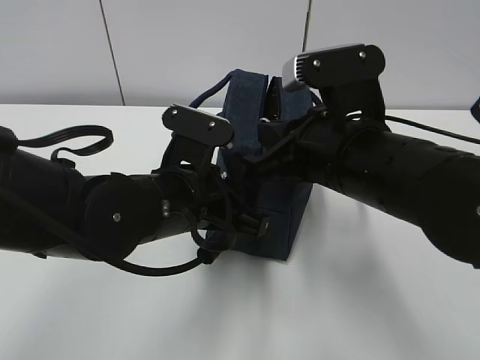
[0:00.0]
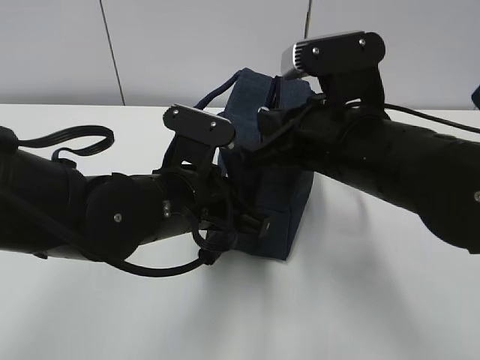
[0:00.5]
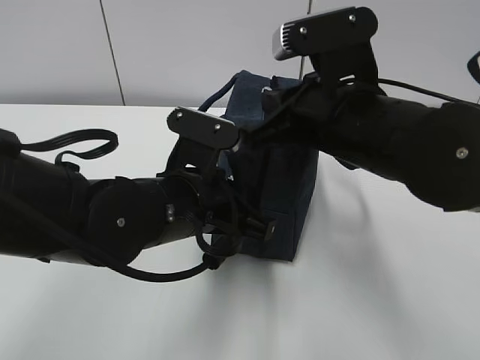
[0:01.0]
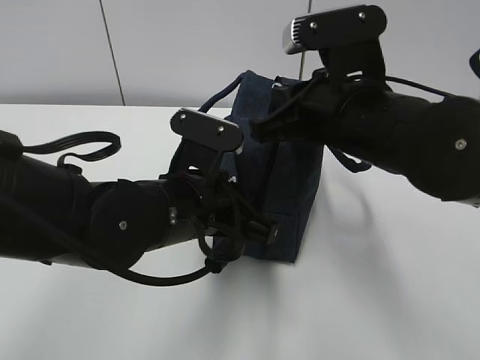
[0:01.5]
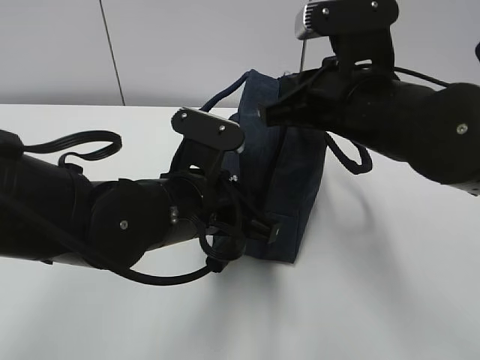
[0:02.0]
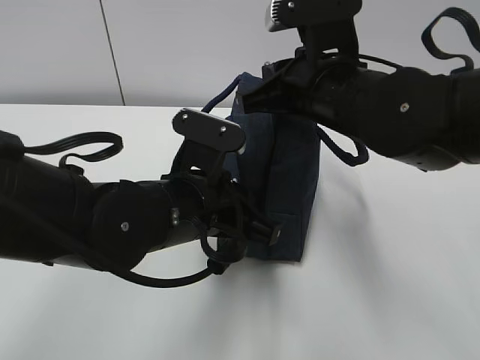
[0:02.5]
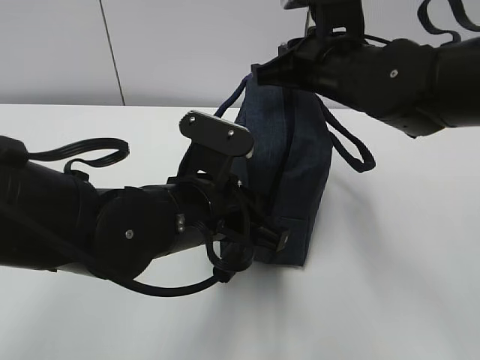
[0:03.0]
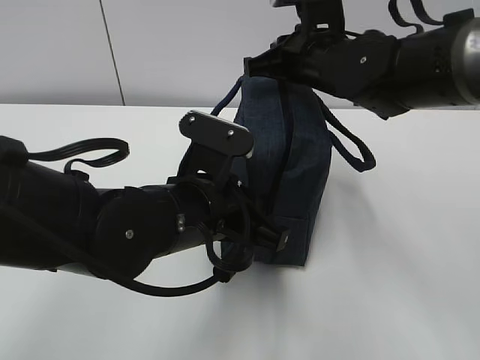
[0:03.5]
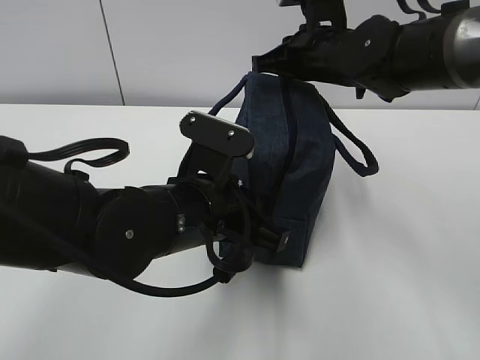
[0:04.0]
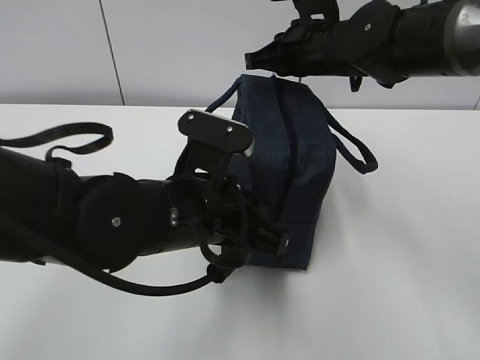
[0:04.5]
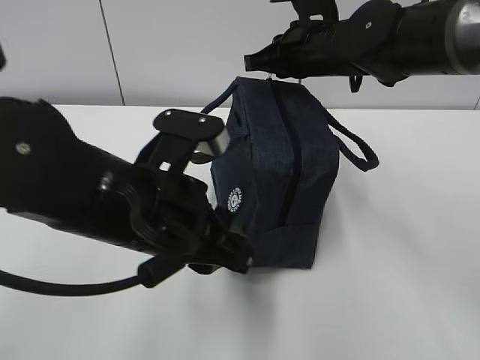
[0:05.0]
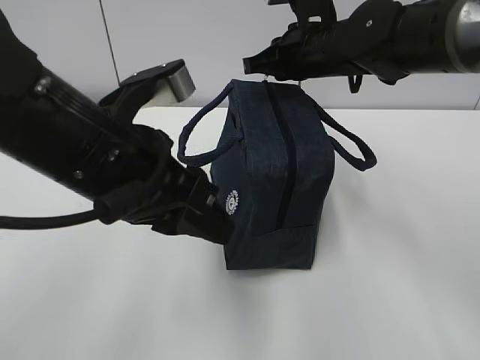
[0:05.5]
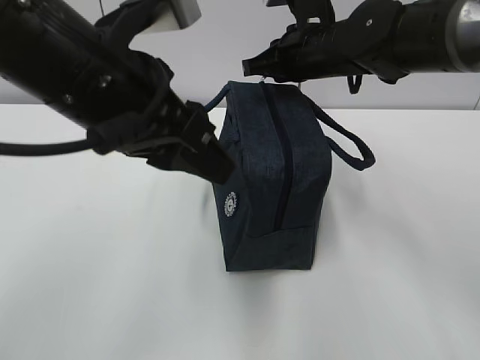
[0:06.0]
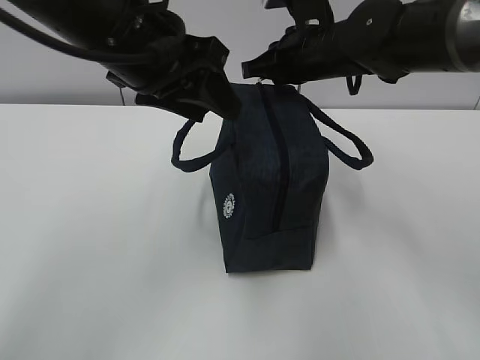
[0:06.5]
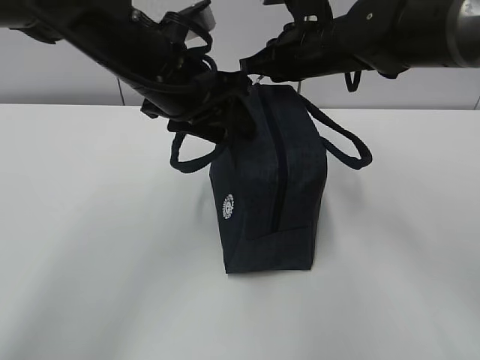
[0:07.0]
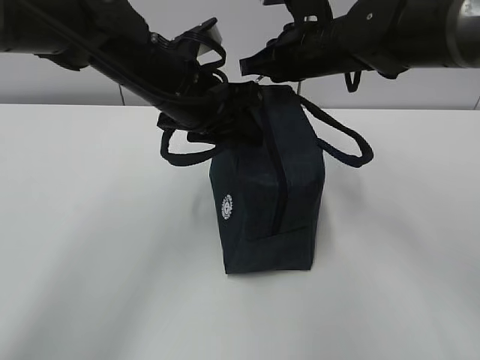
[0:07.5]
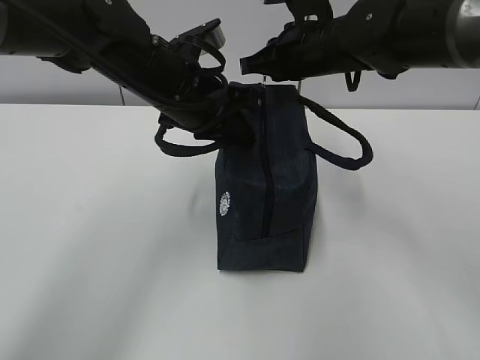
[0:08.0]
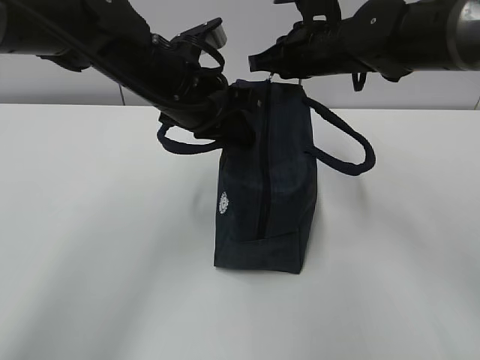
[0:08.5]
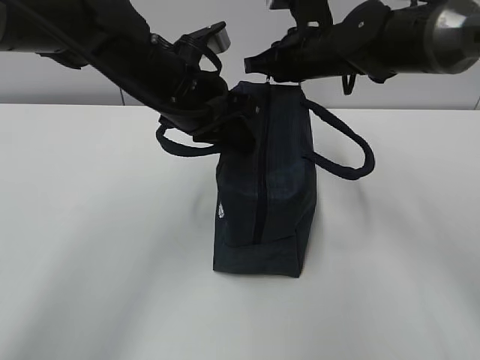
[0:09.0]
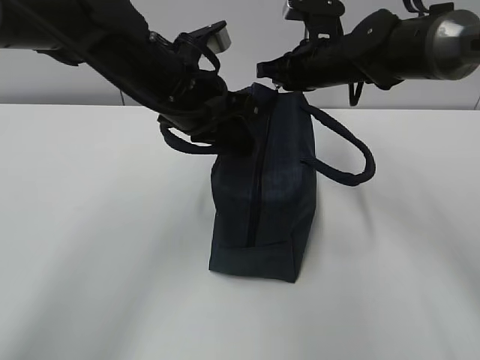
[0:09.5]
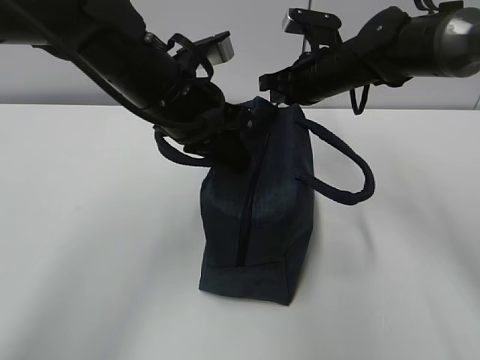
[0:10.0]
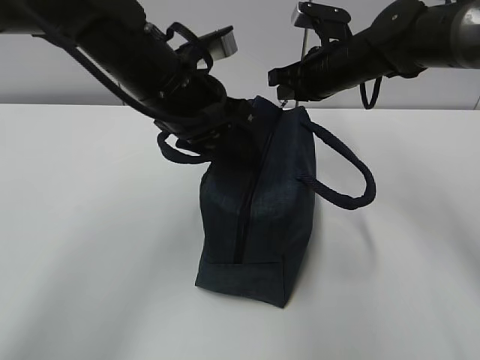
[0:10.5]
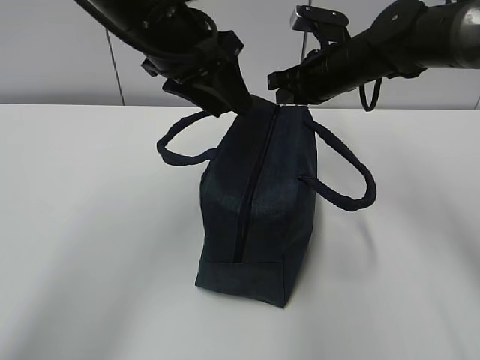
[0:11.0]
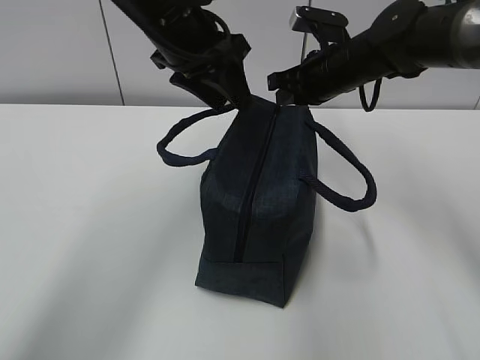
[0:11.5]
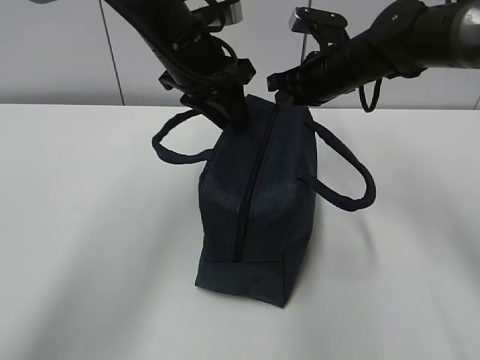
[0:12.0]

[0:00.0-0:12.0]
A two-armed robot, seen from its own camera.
0:02.0 to 0:04.0: The right gripper travels forward by about 15 cm.
0:04.0 to 0:06.0: The left gripper goes roughly 15 cm upward, and opens up.
0:06.0 to 0:08.0: The left gripper heads forward and downward, covering approximately 15 cm, and closes up.
0:08.0 to 0:10.0: The right gripper shifts by about 5 cm.
0:10.0 to 0:12.0: The left gripper shifts about 5 cm forward, and opens up.

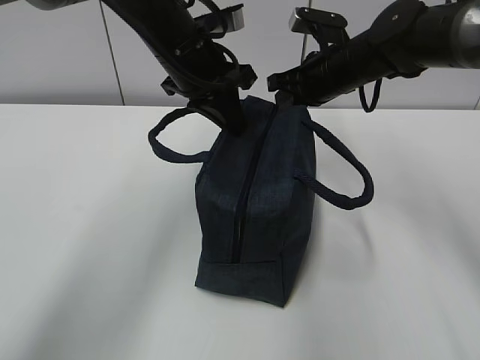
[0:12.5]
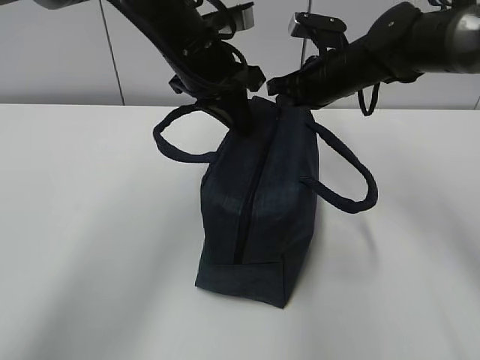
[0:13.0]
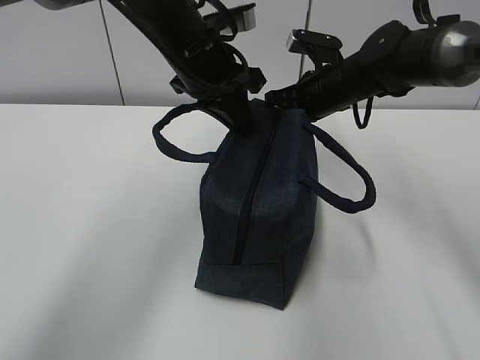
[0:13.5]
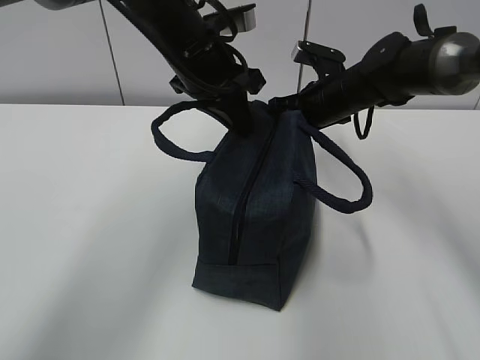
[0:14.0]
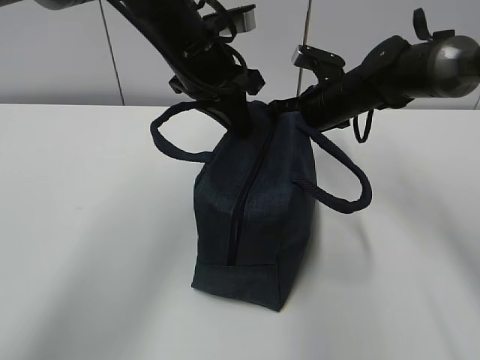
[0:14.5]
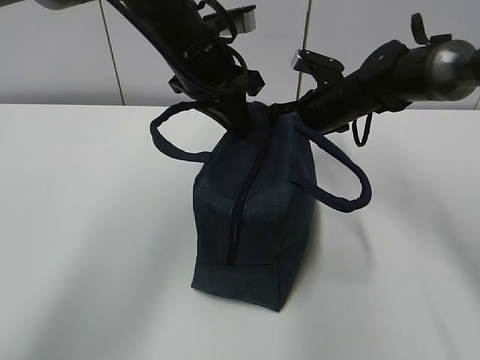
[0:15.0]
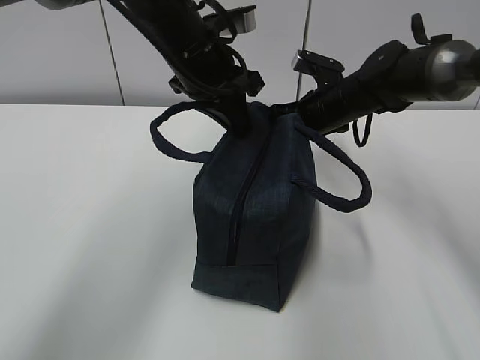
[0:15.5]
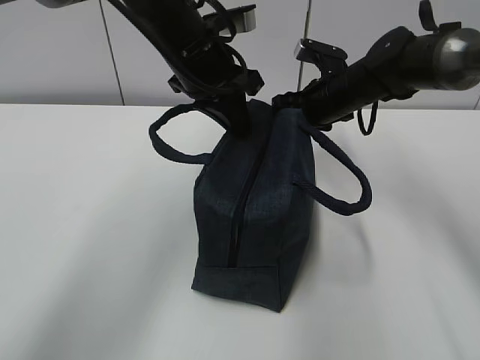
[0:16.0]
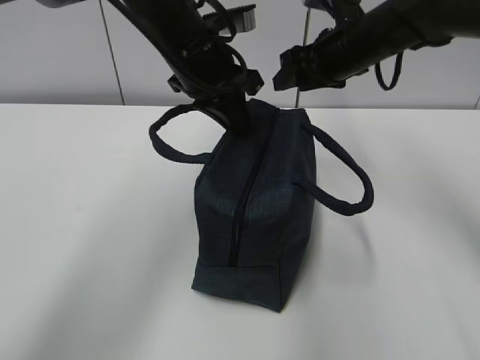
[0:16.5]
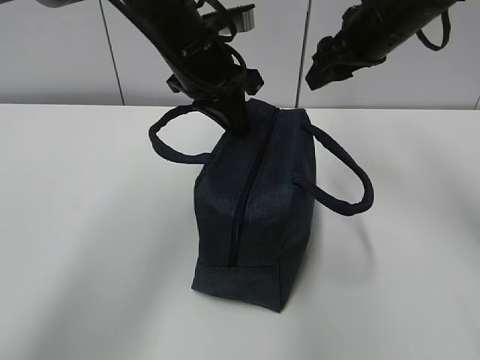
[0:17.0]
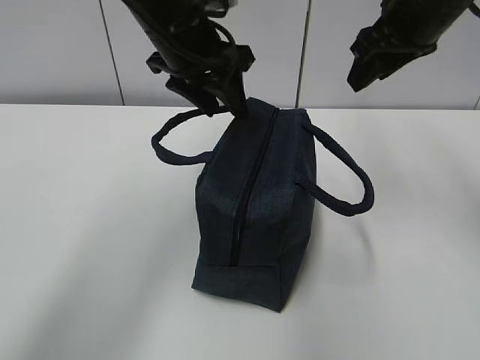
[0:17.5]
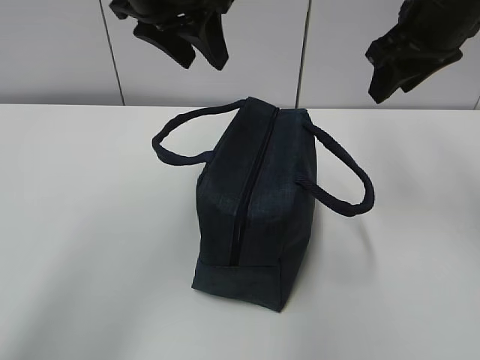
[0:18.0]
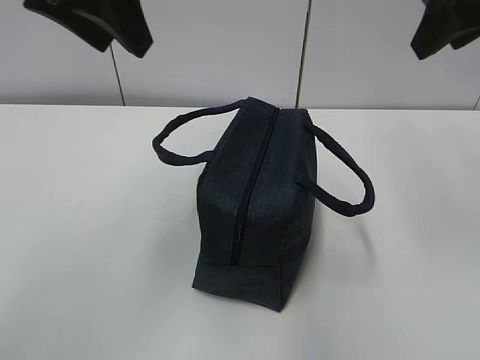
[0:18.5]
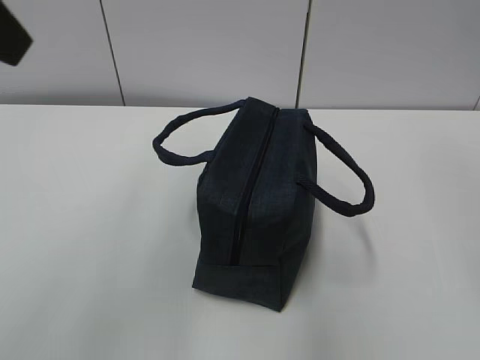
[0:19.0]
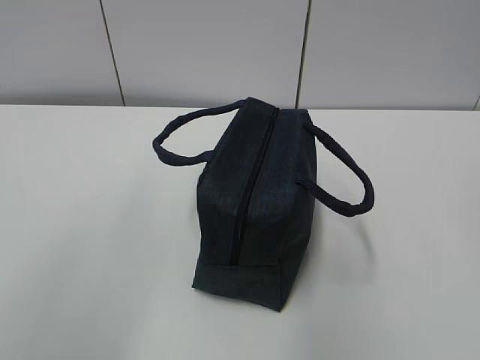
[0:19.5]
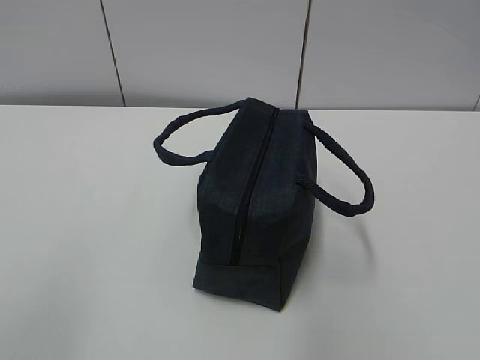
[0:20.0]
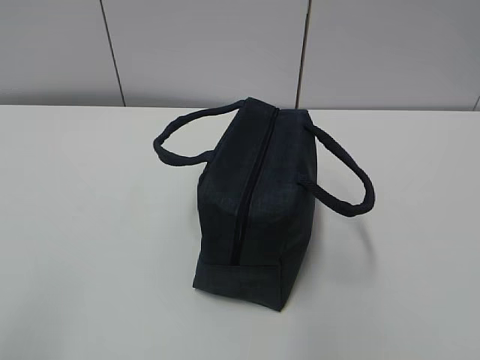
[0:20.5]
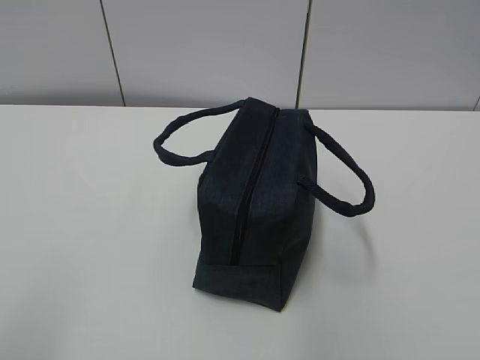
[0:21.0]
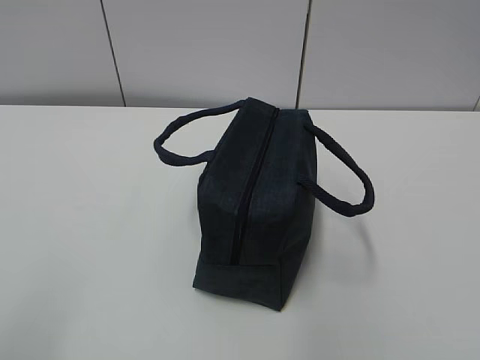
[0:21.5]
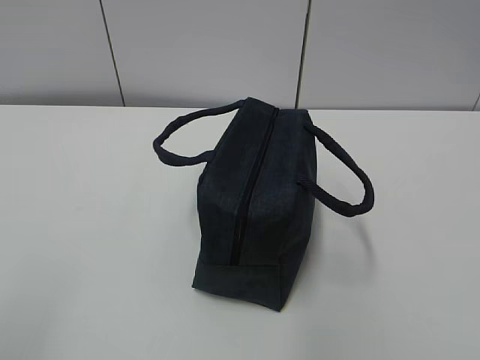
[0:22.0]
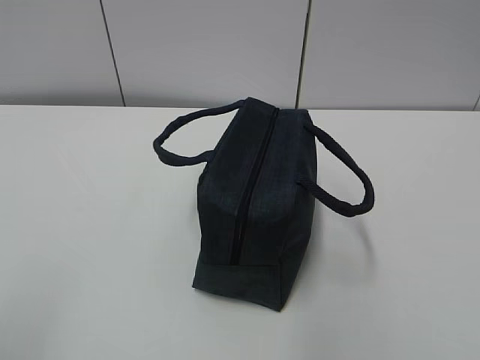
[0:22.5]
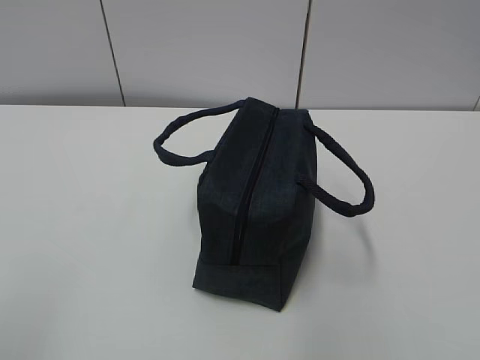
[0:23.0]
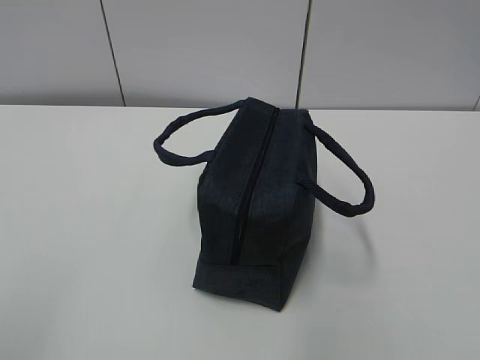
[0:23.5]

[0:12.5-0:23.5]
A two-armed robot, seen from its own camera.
0:12.5 to 0:14.5: The right gripper is displaced downward by roughly 5 cm.
0:14.5 to 0:16.0: The right gripper opens.
0:16.0 to 0:18.0: The left gripper heads upward, covering some 10 cm, and opens. Meanwhile the right gripper moves upward and backward, some 20 cm.
0:18.0 to 0:20.0: The right gripper heads backward, covering roughly 40 cm. Meanwhile the left gripper goes approximately 40 cm backward and to the left.

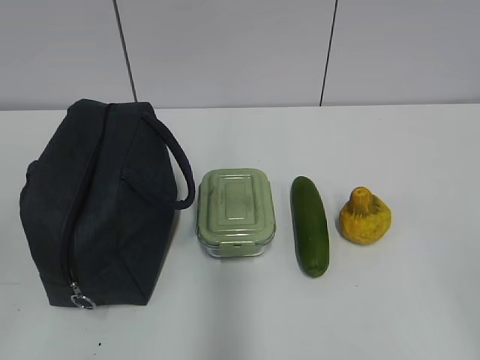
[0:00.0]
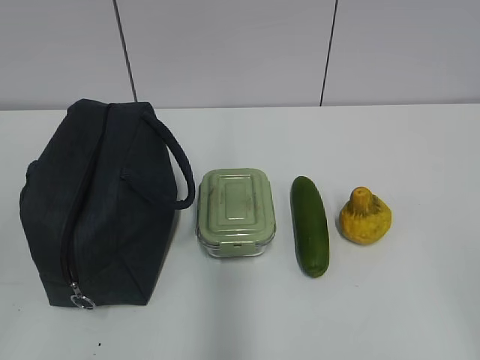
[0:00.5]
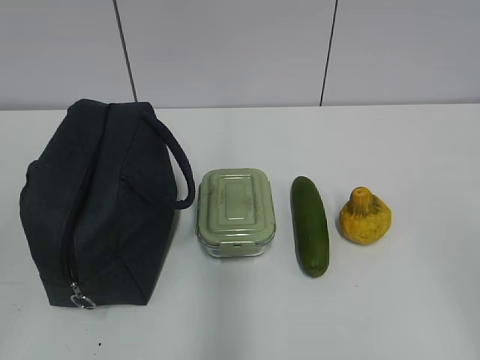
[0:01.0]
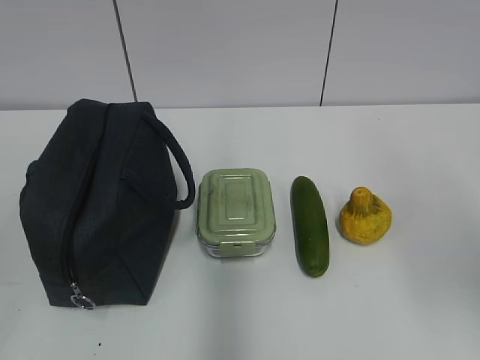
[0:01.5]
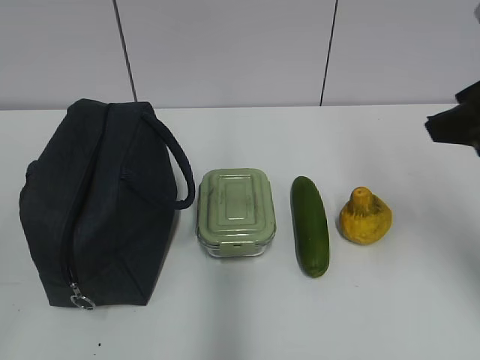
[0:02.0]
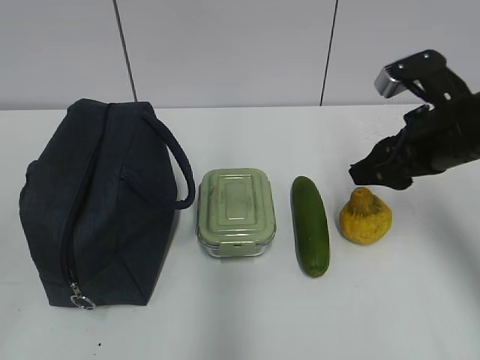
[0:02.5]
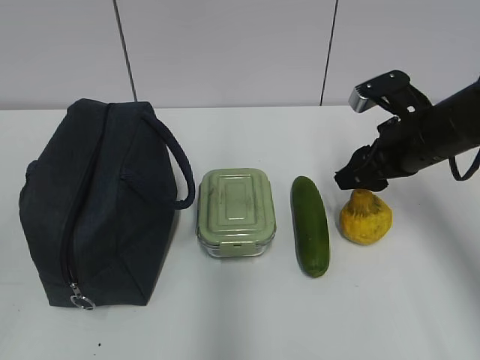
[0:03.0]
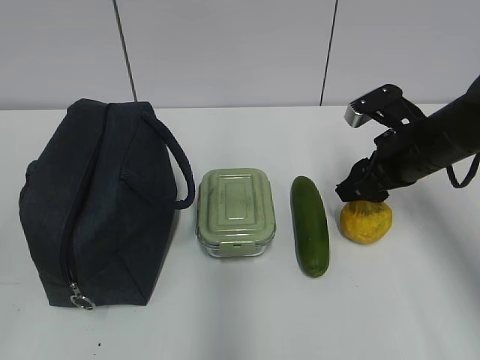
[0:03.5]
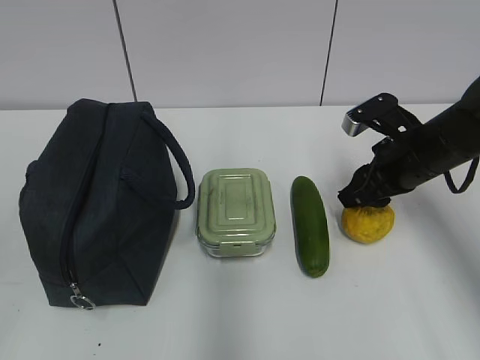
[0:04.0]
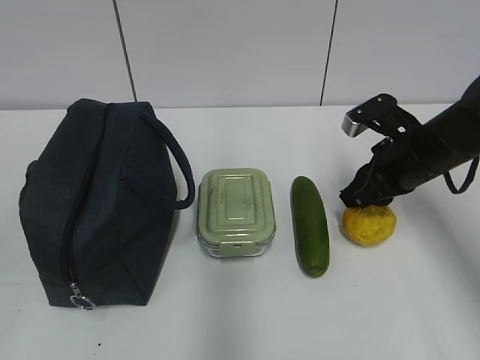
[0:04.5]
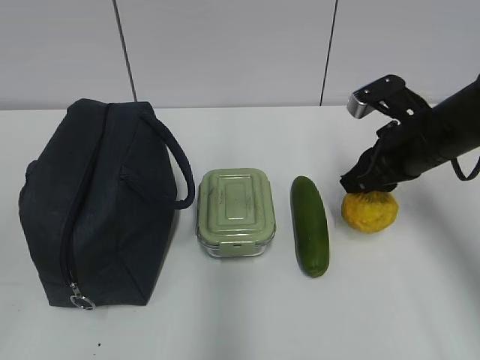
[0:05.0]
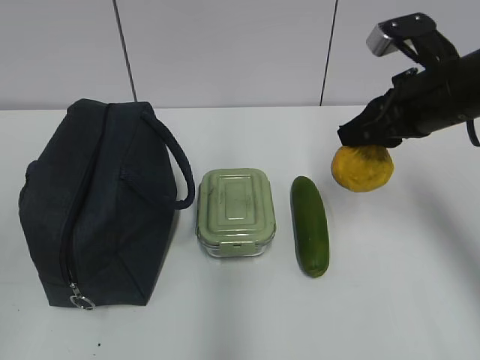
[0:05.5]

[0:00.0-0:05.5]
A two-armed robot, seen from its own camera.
Step, 0:00.0 to 0:04.5: Grab the pear with your right hand.
0:02.0 to 0:03.5: The right gripper moves downward and forward, roughly 20 cm.
0:03.5 to 0:05.5: The right gripper heads upward, covering some 10 cm, and closes up.
